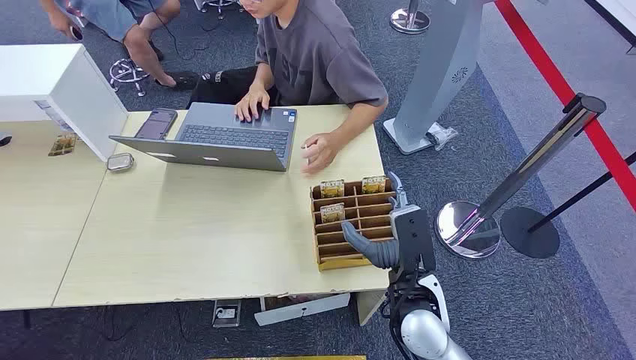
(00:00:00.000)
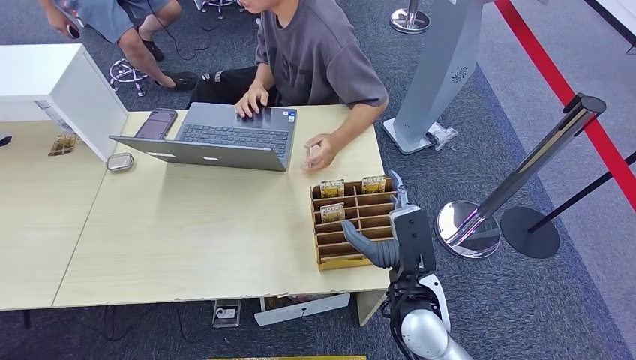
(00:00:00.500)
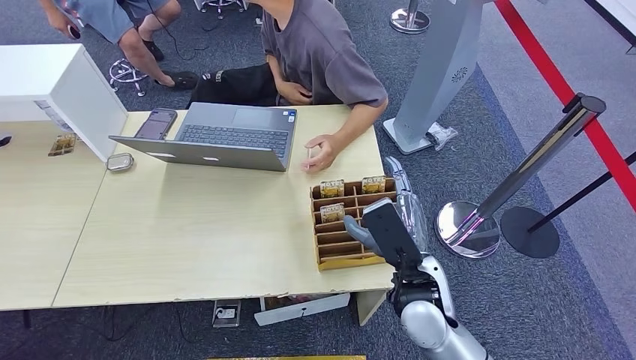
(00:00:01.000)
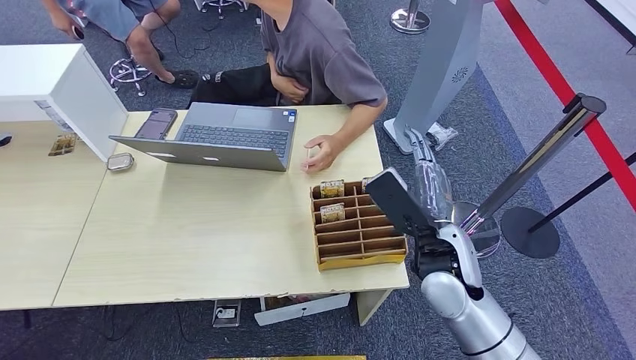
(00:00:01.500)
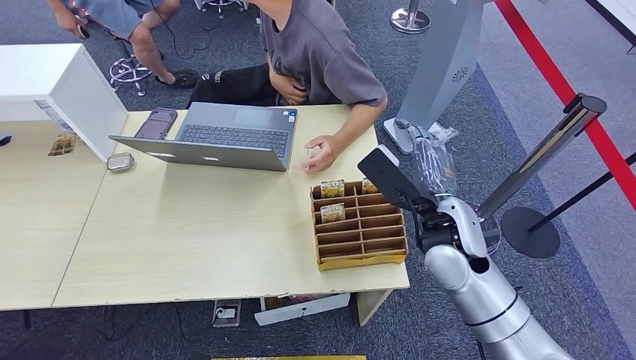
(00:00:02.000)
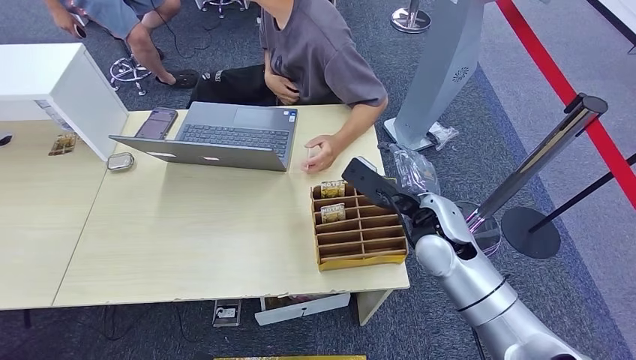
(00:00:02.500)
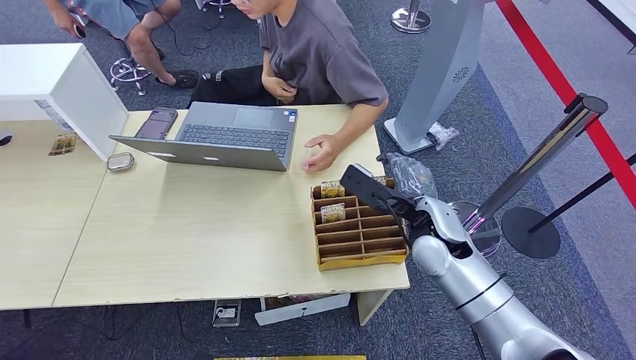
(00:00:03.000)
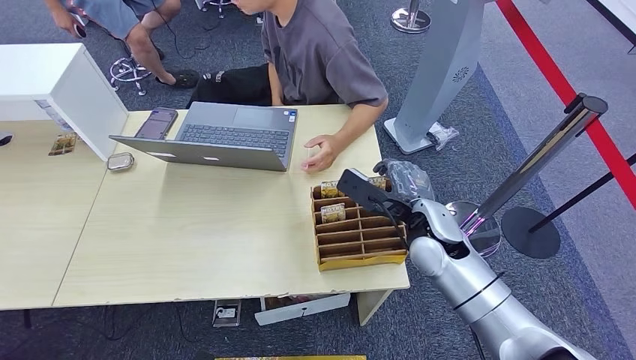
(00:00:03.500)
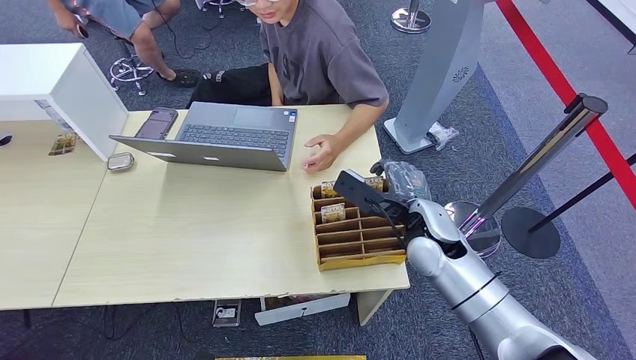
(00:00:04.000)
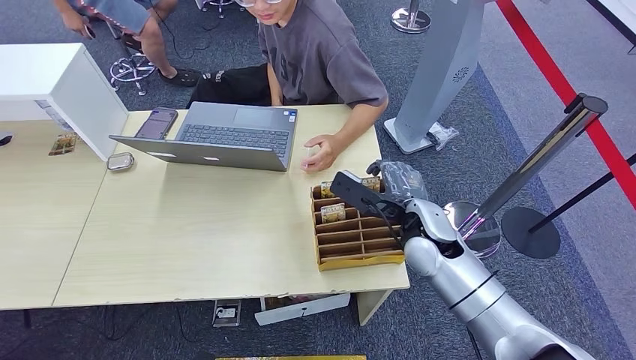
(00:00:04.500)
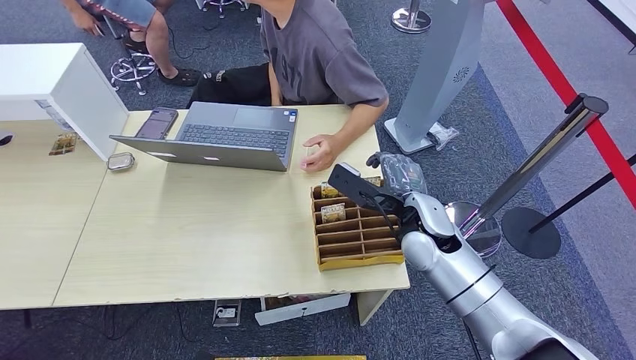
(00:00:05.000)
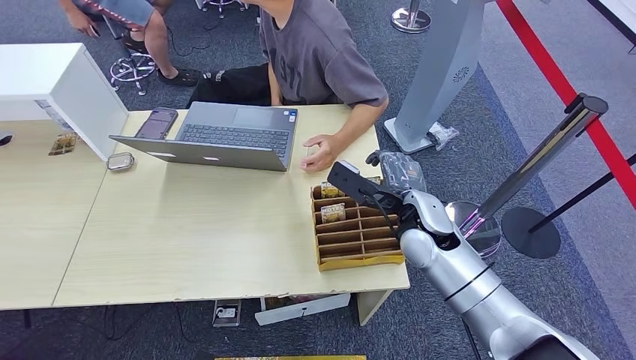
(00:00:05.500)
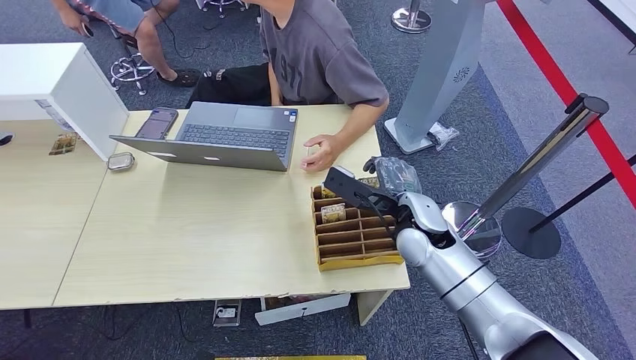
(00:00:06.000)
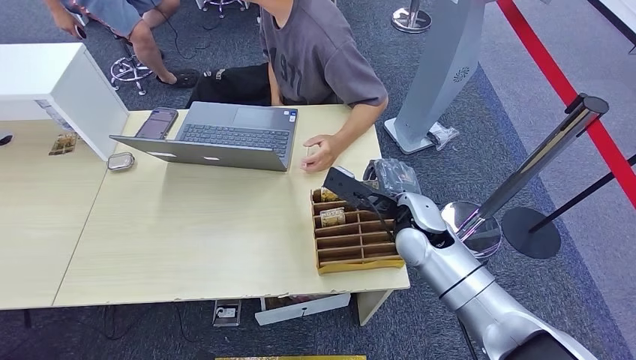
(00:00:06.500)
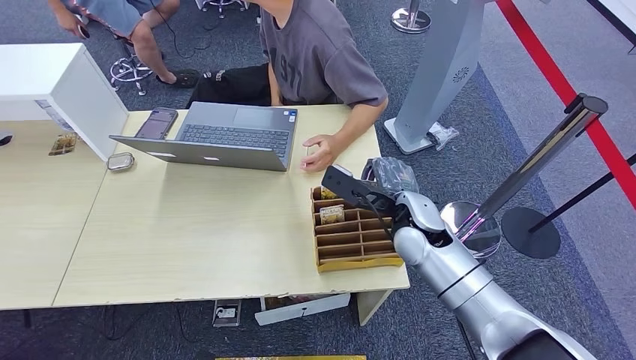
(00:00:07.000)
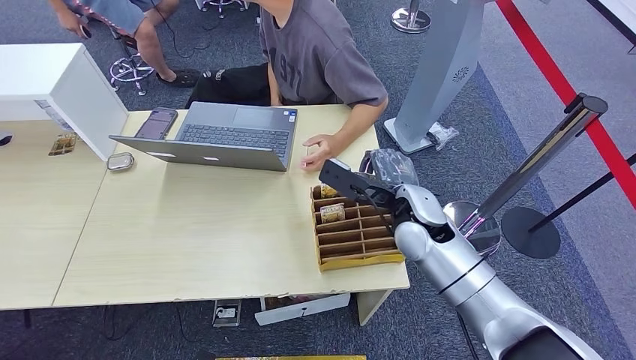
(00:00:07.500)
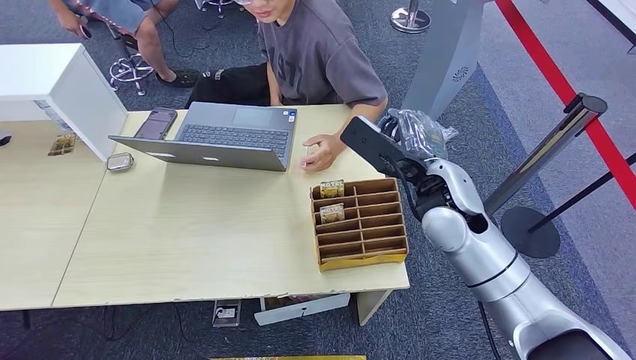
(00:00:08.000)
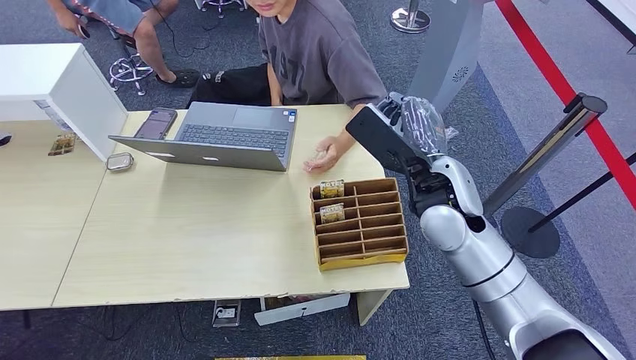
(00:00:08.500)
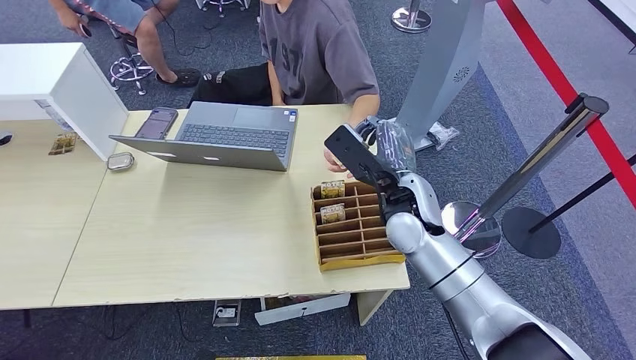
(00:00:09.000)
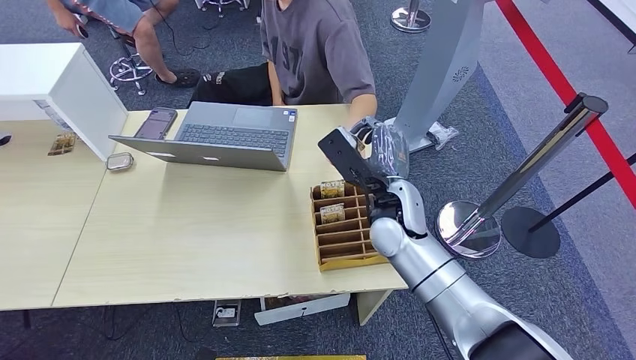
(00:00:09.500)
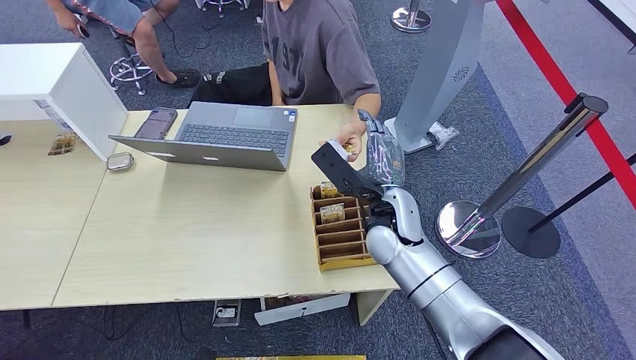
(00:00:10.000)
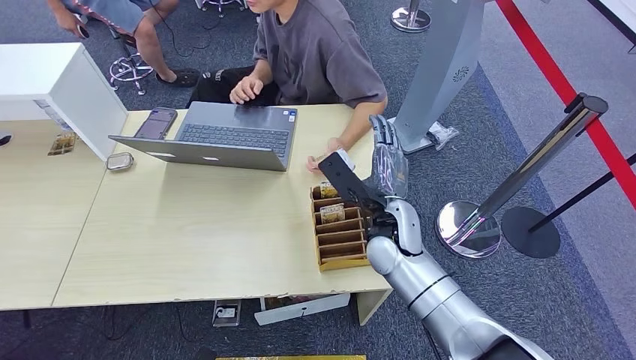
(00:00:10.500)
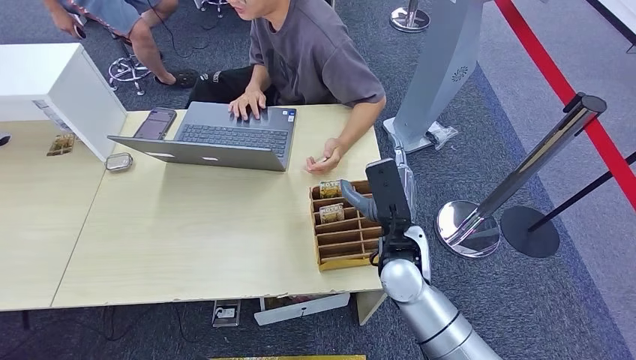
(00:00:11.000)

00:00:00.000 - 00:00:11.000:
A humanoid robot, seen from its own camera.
Task of the whole recording: Pick up the card and hand it over to the target person.
Step, 00:00:00.000 - 00:00:08.000: Pick up the key card from the card box.
Step, 00:00:08.500 - 00:00:11.000: Hand the key card to the target.
00:00:02.000 - 00:00:05.500: There are only small adjustments of the hands.
00:00:05.500 - 00:00:07.500: The right hand goes some 10 cm upward.
00:00:07.500 - 00:00:09.000: The right hand heads downward and to the left, covering roughly 10 cm.
00:00:09.000 - 00:00:11.000: The right hand goes some 10 cm backward.
